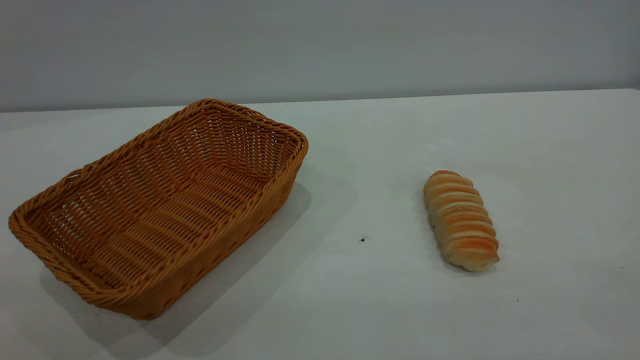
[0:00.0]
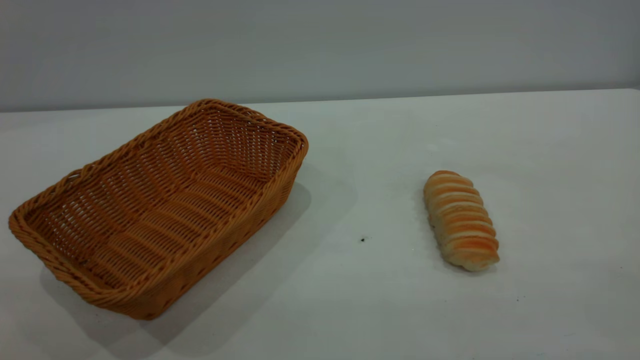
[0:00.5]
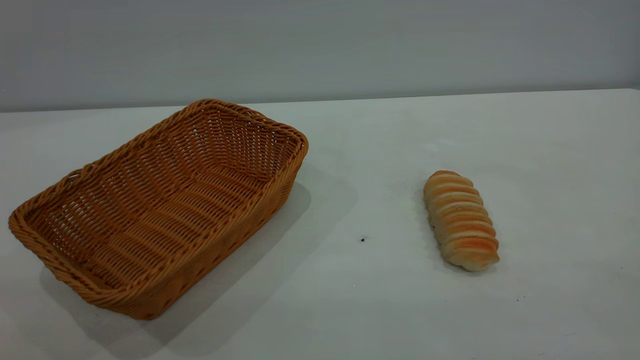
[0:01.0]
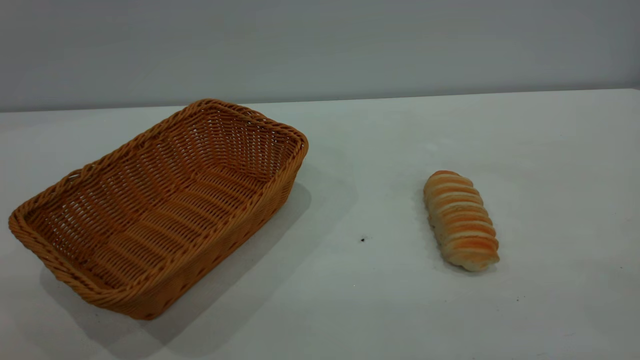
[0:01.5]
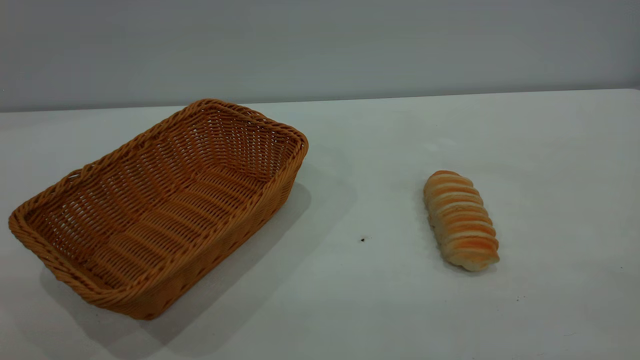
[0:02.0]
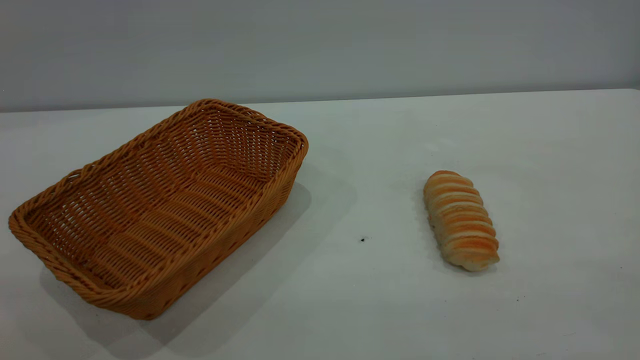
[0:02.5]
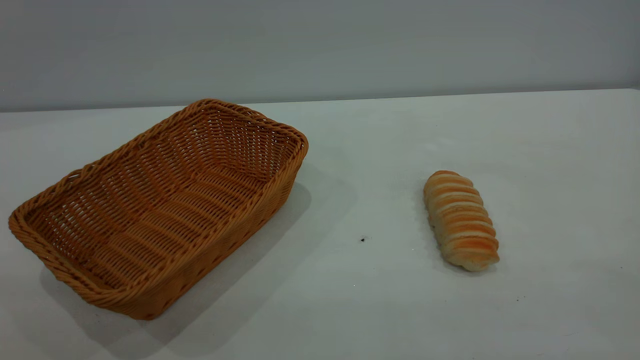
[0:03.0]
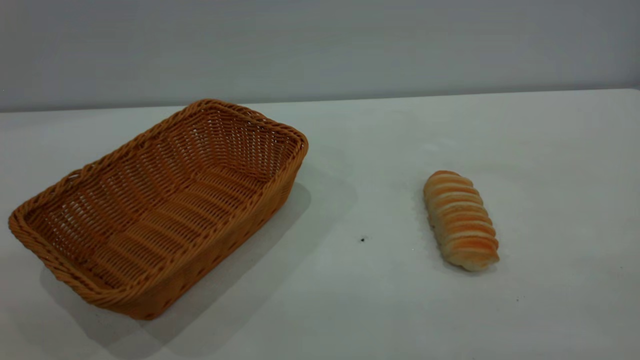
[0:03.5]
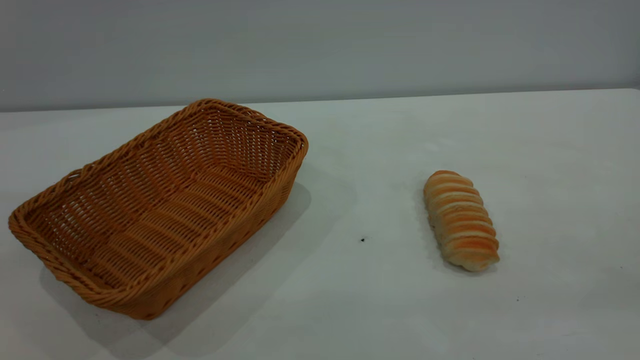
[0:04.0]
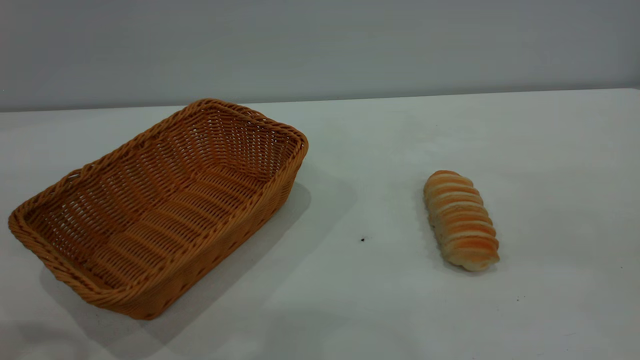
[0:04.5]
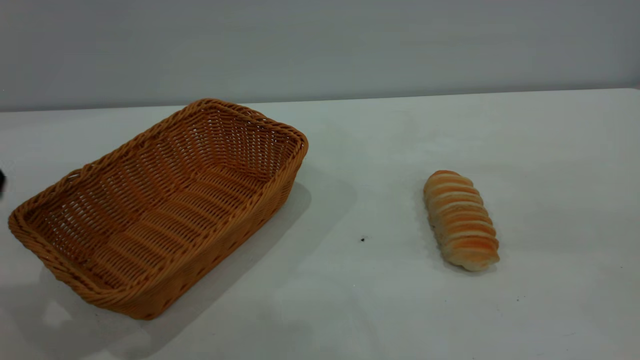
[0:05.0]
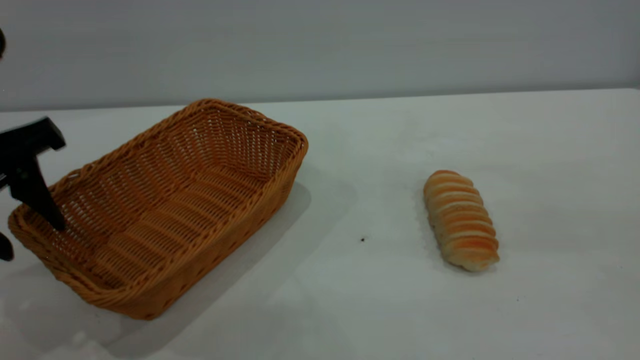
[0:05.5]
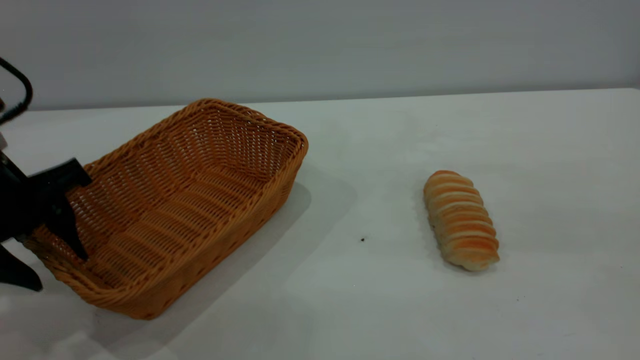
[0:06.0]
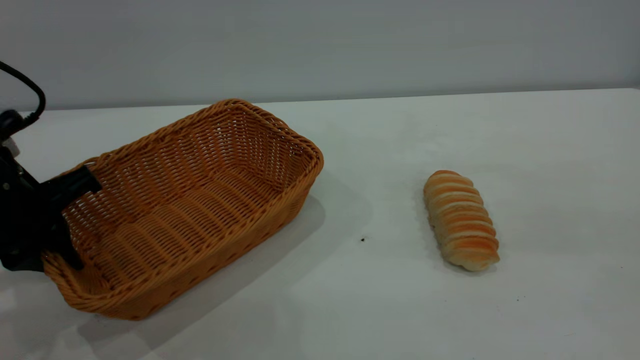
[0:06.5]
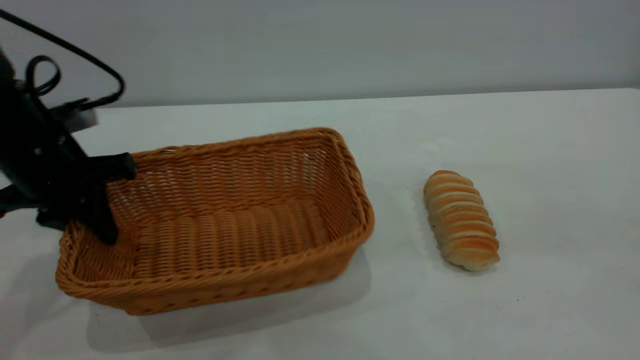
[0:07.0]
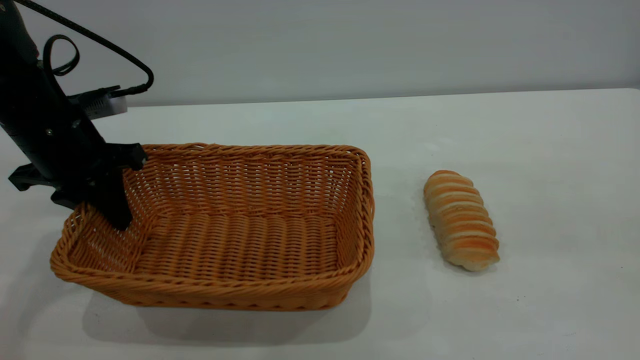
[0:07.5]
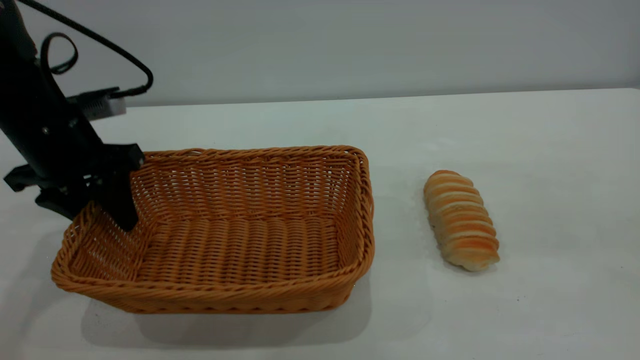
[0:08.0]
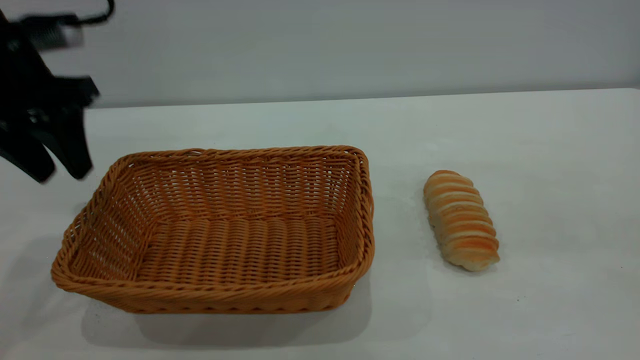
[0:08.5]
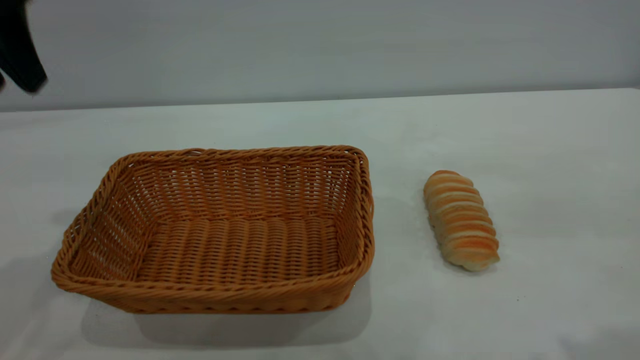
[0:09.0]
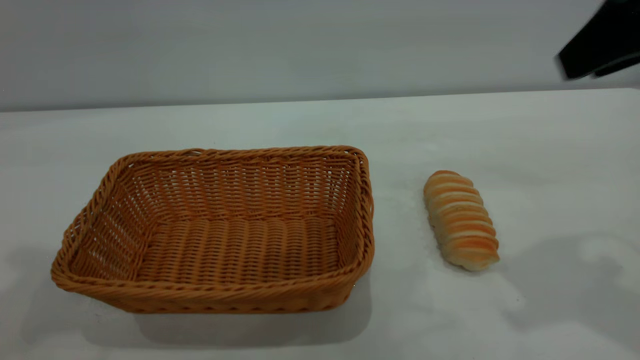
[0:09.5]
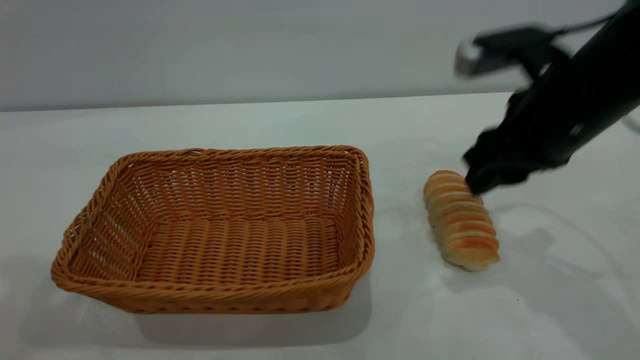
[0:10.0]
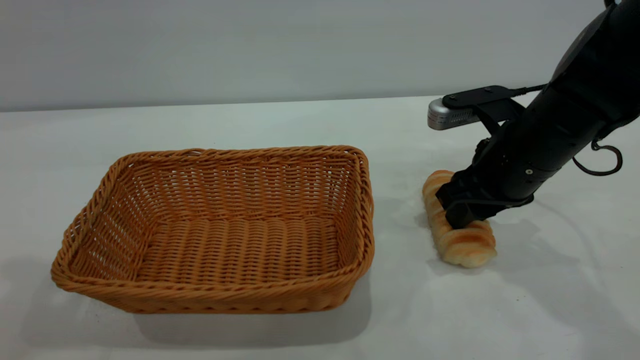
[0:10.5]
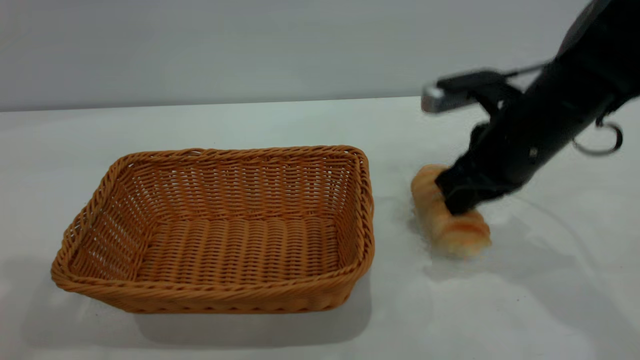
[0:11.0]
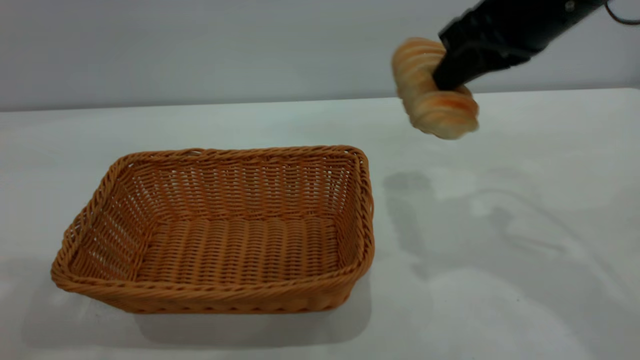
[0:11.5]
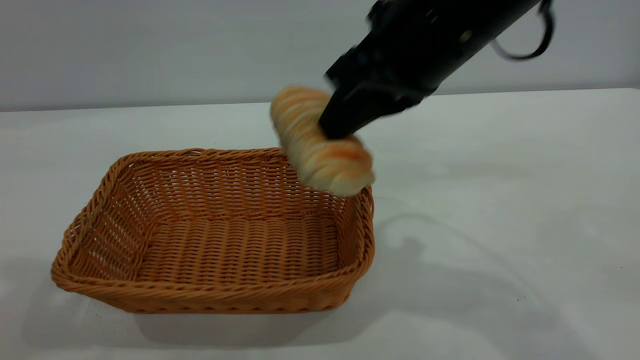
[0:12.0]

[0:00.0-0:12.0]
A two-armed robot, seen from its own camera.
Task of the whole recording: One hand grasps the yellow basket and places it in the middle of the table, while the other hand picks up the long bread and puts it into the yellow basket.
Step, 0:00.0 to 0:08.0: Move the basket to the center of view.
0:00.0 to 0:02.0: Both grippers stay about where they are.
0:04.0 to 0:06.0: The left gripper moves downward and forward, some 25 cm.
0:06.0 to 0:08.0: The left gripper goes roughly 10 cm forward, and closes, then reopens.
0:08.0 to 0:10.0: The left gripper shifts approximately 30 cm upward and backward. The right gripper travels forward and downward by approximately 30 cm.
0:10.0 to 0:12.0: The right gripper heads to the left and upward, covering approximately 15 cm, and closes up.

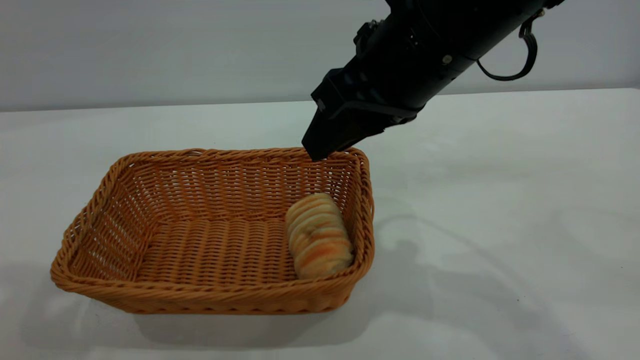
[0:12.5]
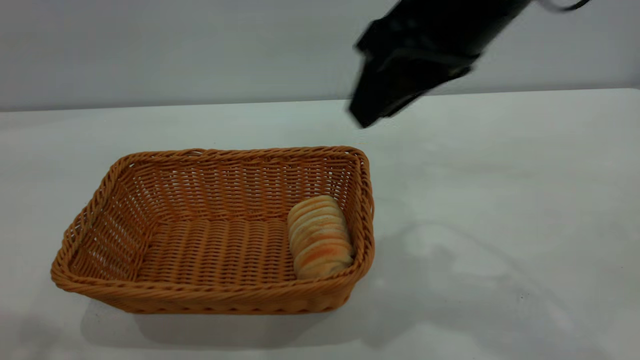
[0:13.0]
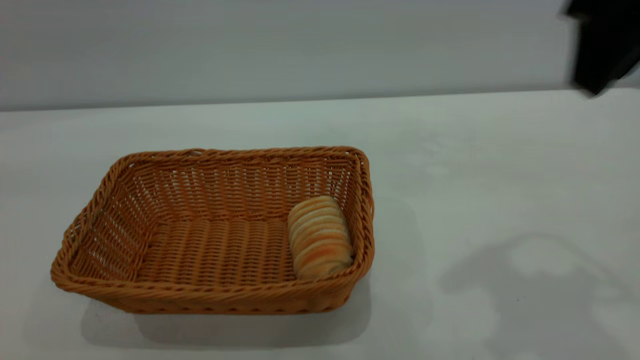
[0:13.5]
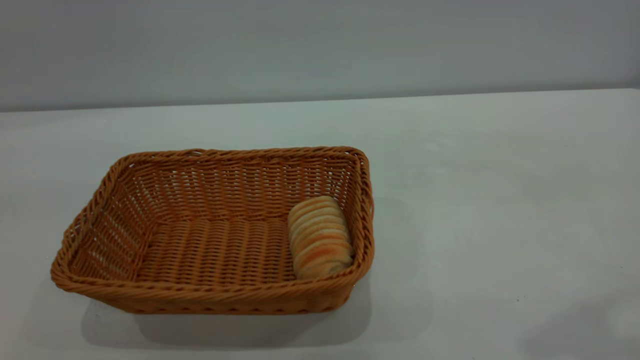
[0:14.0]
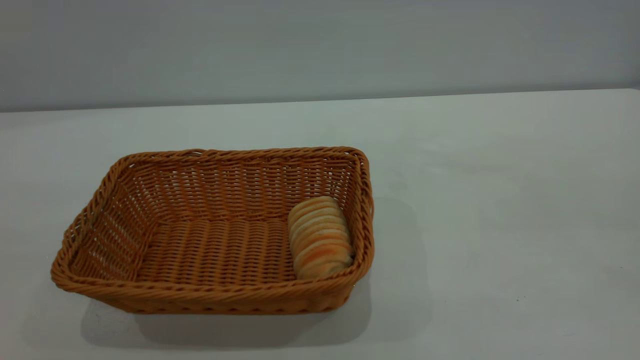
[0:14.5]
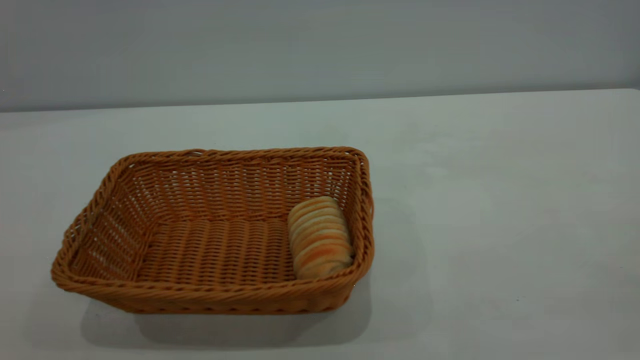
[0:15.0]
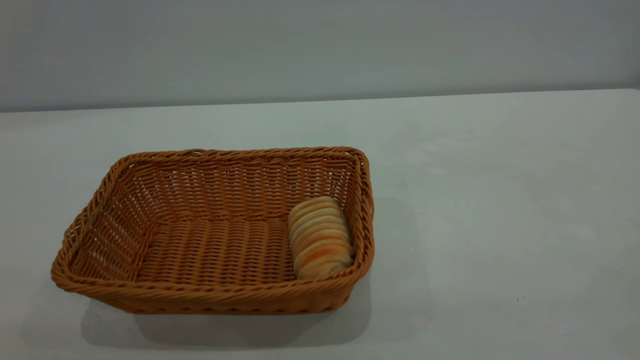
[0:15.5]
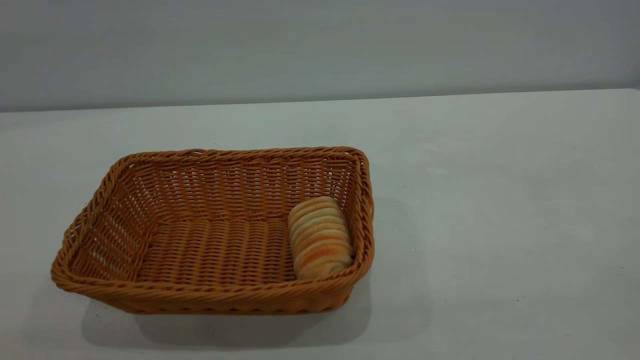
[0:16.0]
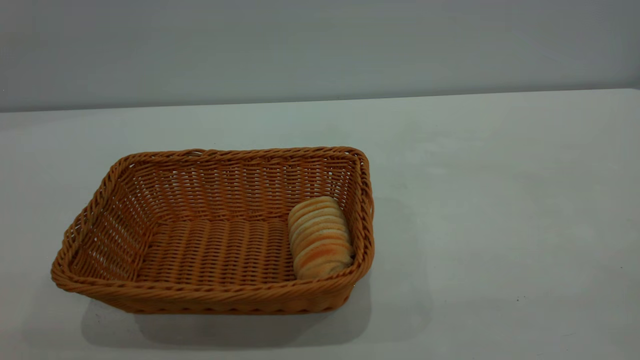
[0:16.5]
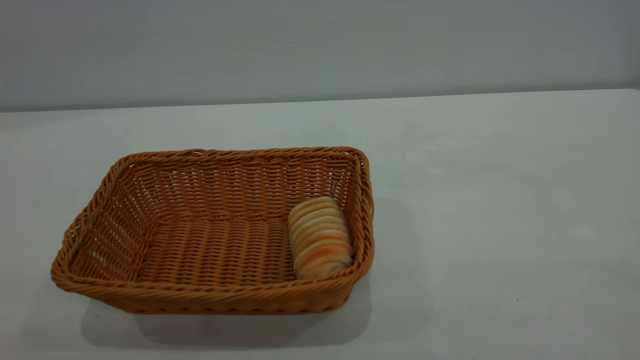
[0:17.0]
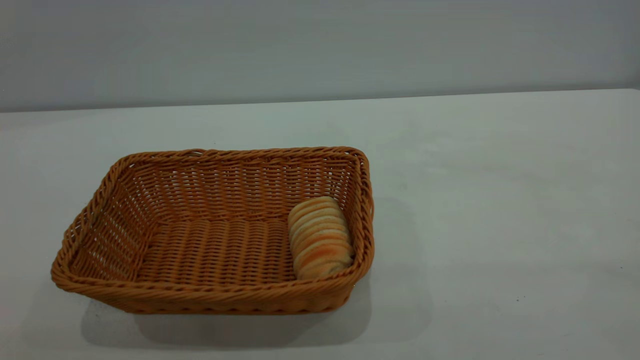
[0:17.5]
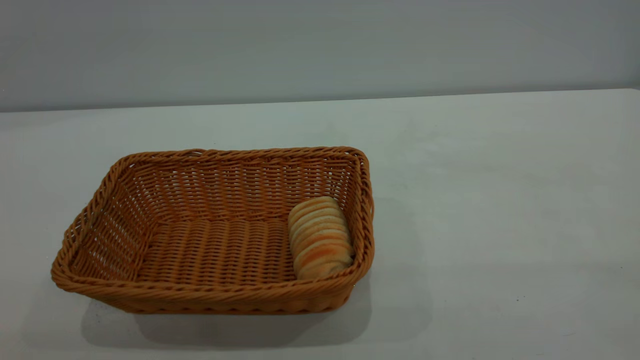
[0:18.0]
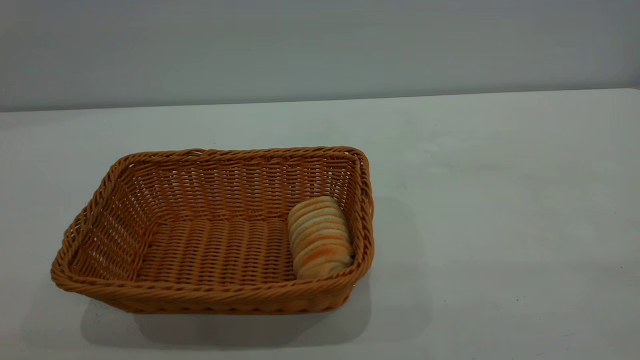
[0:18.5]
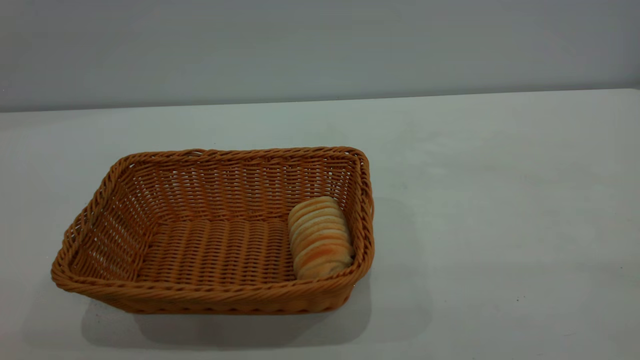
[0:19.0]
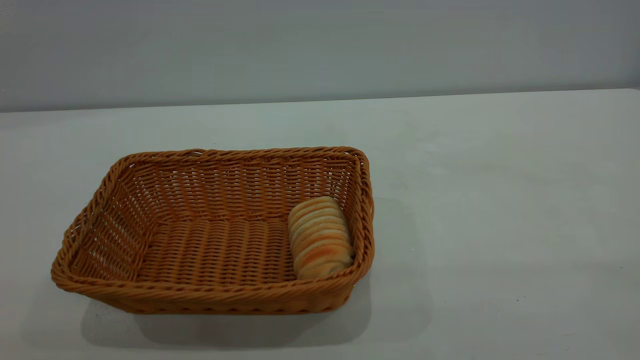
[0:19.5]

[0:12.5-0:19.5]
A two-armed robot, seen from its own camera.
Task of the whole recording: One hand grasps the yellow basket and places it in the middle of the table, while the other hand picks up the long bread and puts it into the yellow basket.
0:12.5 to 0:14.5: The right gripper heads backward, upward and to the right, covering some 40 cm; the left gripper heads backward, covering approximately 20 cm.
0:17.5 to 0:19.5: Both grippers stay about where they are.
